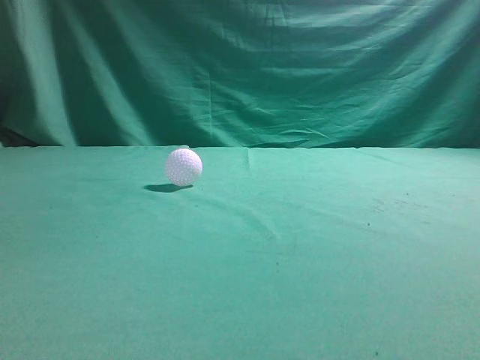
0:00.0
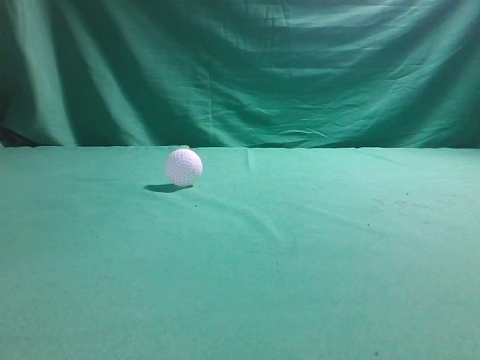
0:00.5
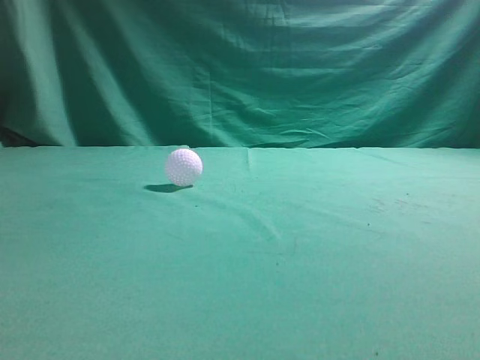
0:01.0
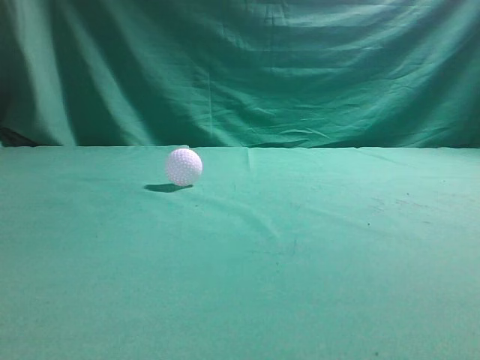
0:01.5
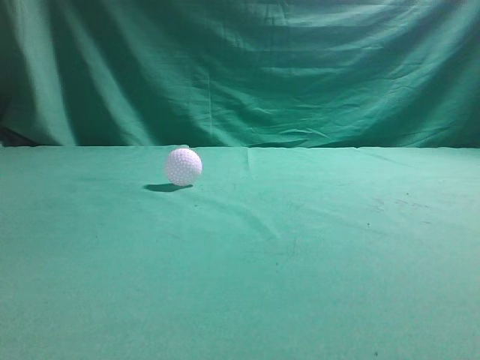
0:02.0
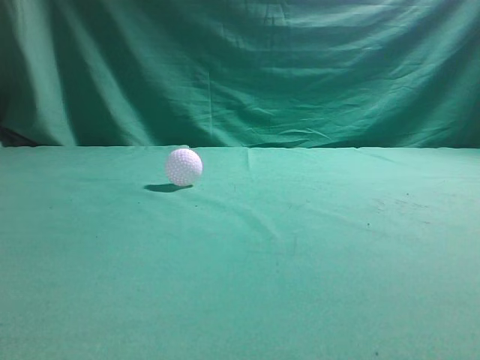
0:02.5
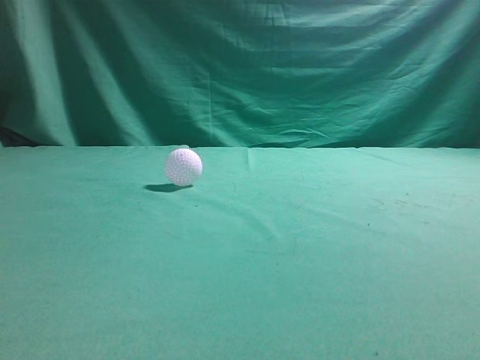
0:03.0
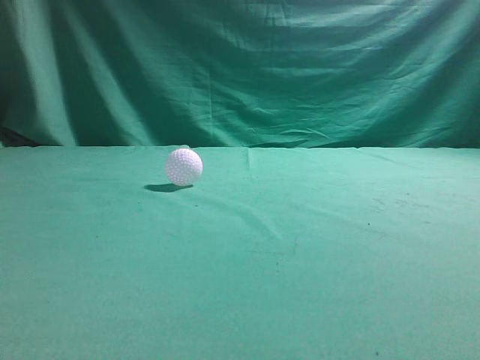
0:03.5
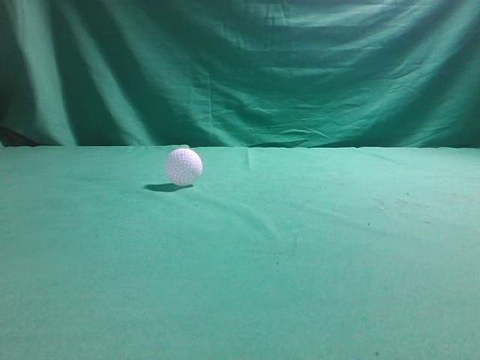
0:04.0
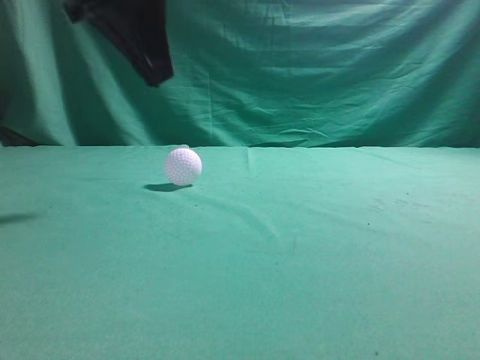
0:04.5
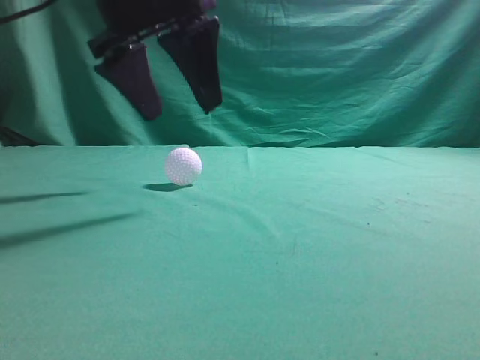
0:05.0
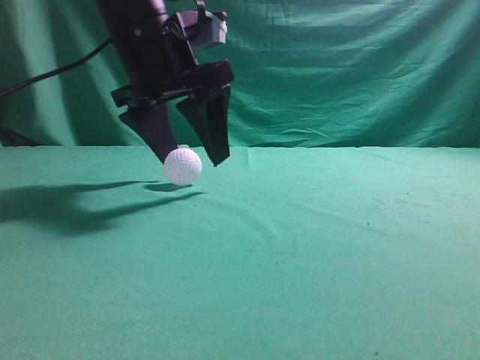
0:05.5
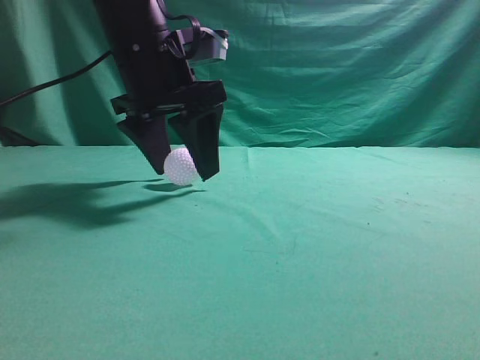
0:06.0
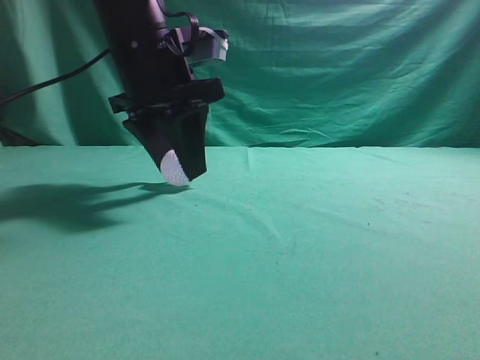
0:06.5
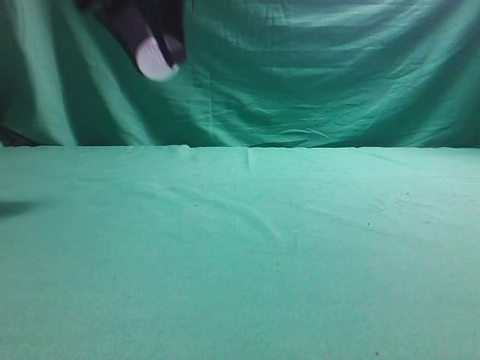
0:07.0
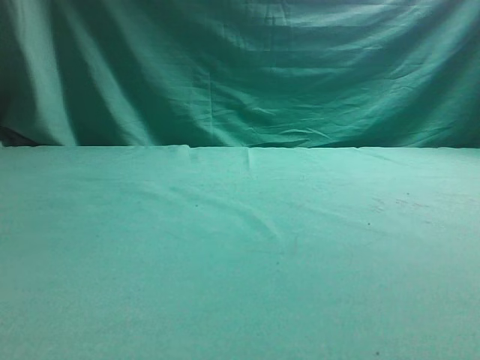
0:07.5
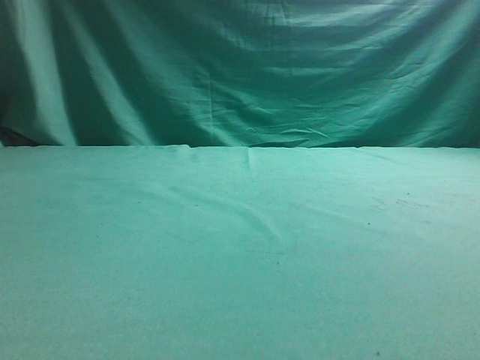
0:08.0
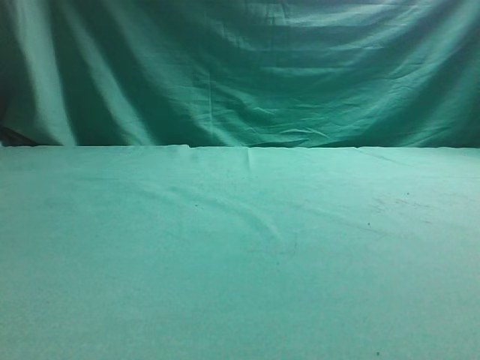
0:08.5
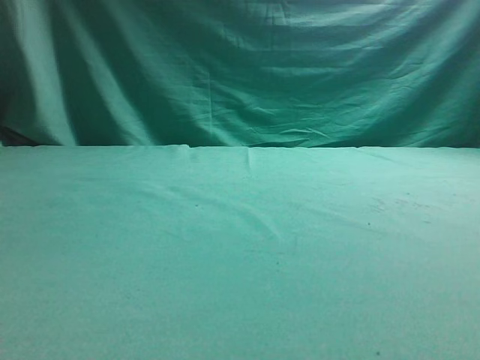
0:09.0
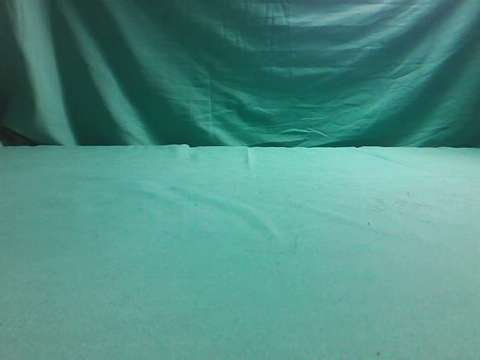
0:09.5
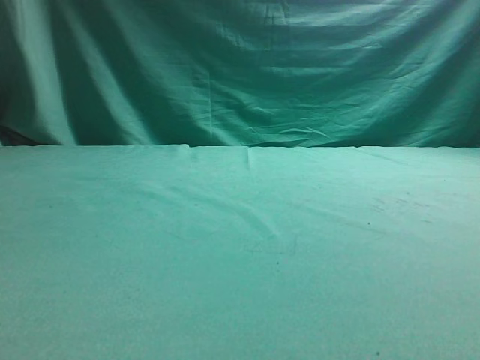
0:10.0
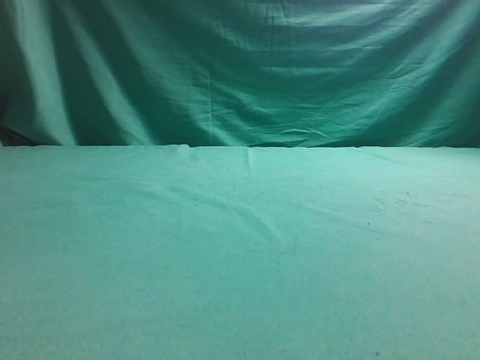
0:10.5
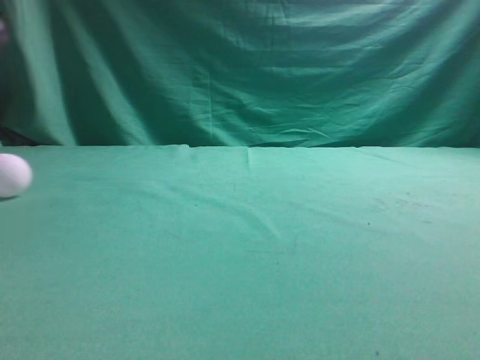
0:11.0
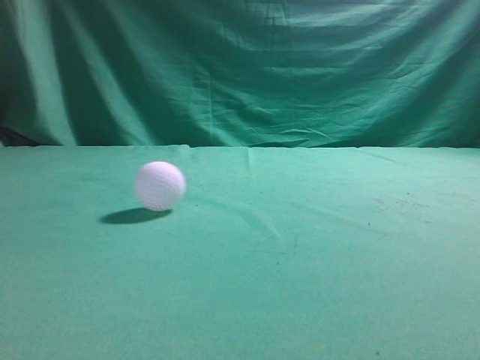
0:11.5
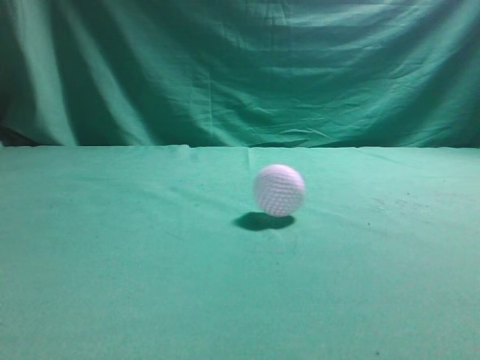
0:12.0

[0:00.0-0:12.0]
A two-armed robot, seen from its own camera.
Task of the whole recording: pick up the ball and place it on the plate, then pick up the ball from the plate and put it in the center of the table.
Step, 0:00.0 to 0:06.5: Grab the spherical object with your left arm.
Step, 0:07.0 to 0:10.0: Place the sphere on the white object.
0:04.0 to 0:06.0: The left gripper is displaced forward, downward and to the right by approximately 25 cm, and opens up.
0:06.0 to 0:08.0: The left gripper moves to the left, upward and backward, roughly 30 cm, and closes its fingers.
0:10.0 to 0:12.0: The left gripper moves upward, backward and to the right, approximately 25 cm, and closes its fingers.

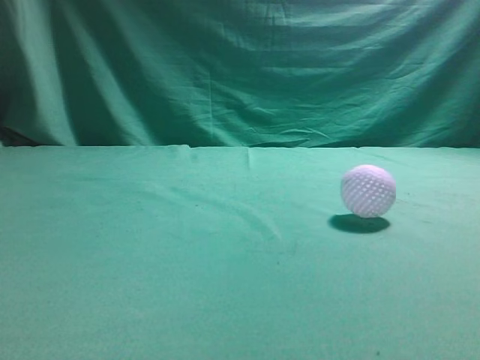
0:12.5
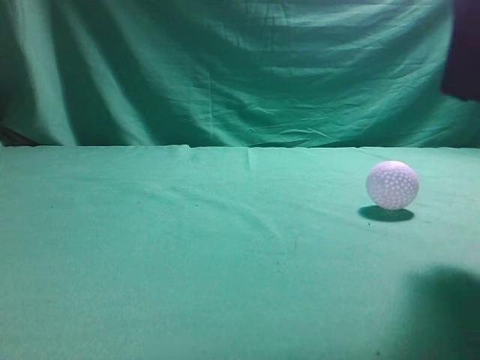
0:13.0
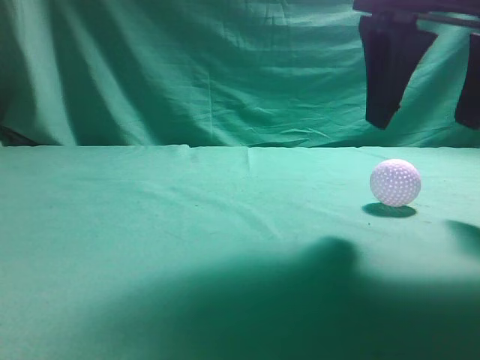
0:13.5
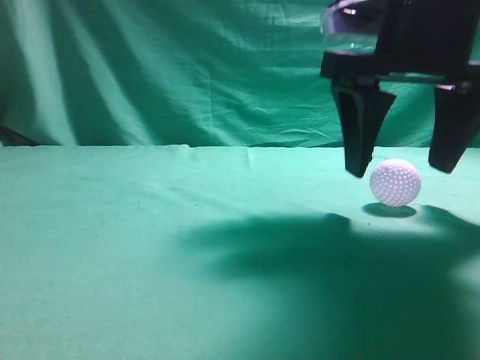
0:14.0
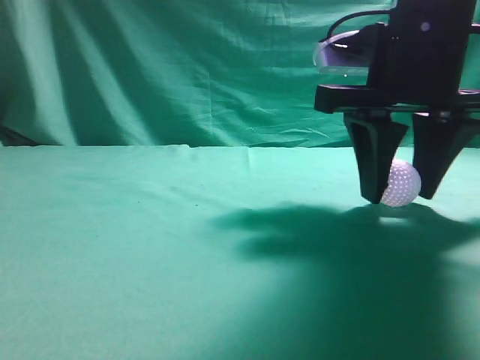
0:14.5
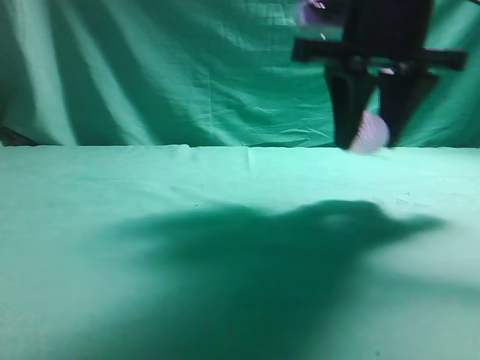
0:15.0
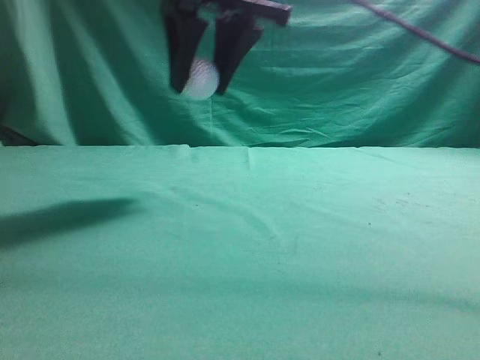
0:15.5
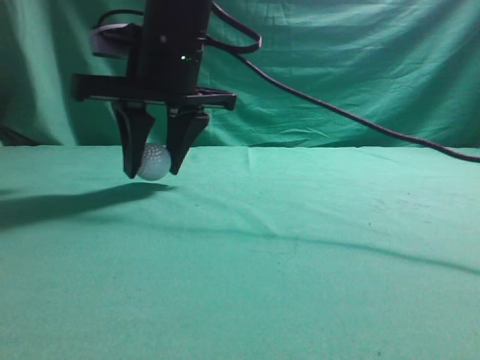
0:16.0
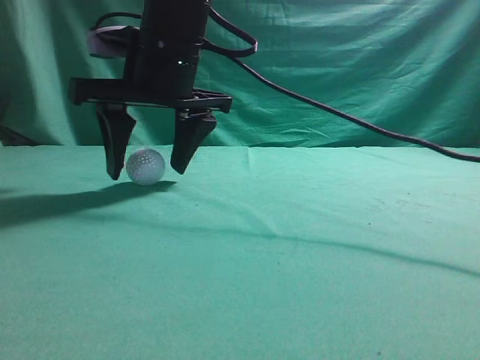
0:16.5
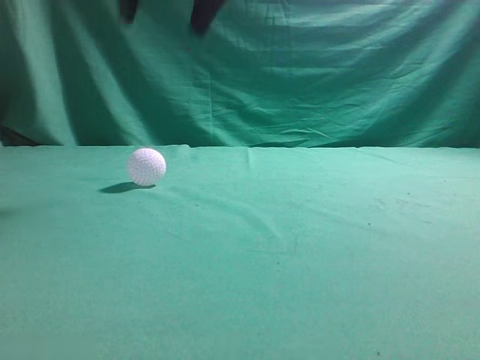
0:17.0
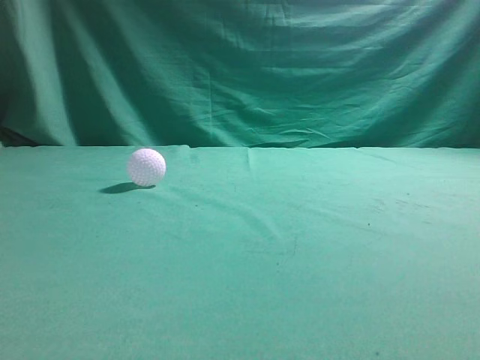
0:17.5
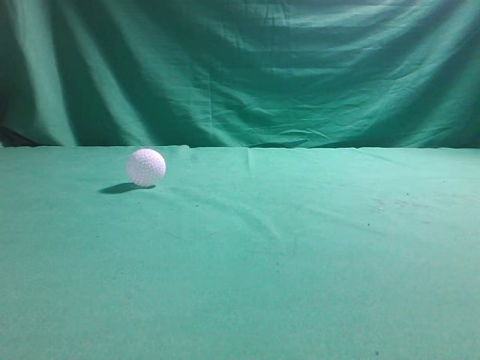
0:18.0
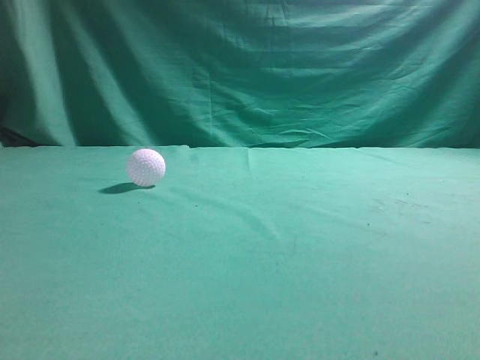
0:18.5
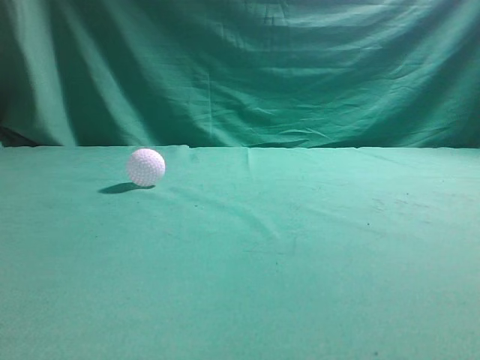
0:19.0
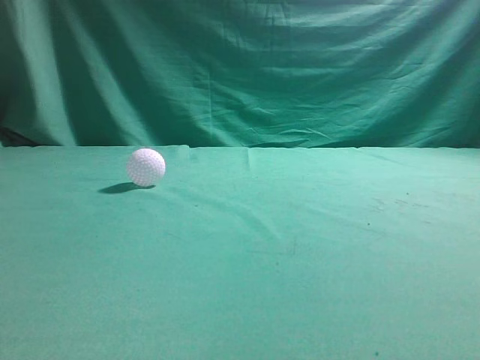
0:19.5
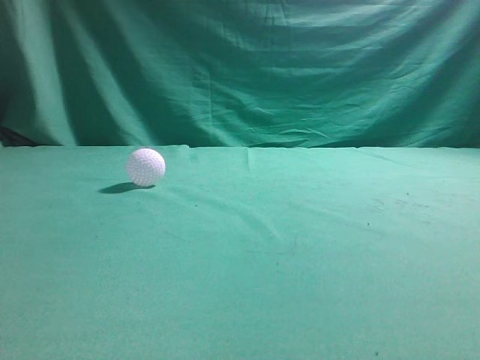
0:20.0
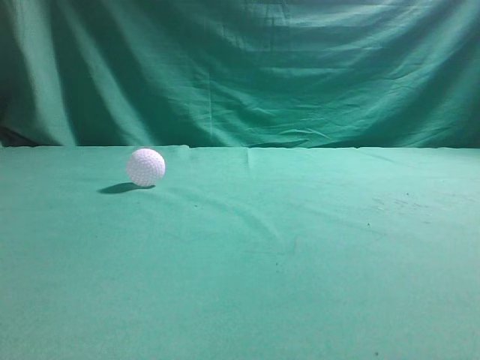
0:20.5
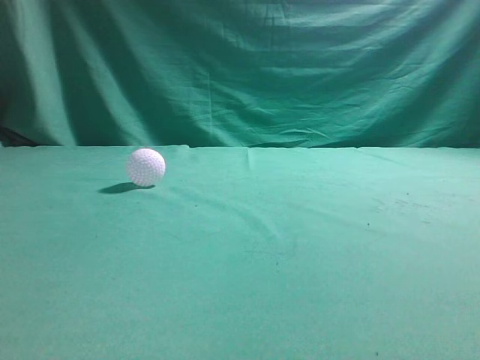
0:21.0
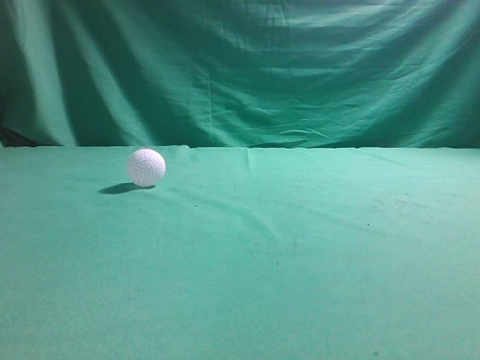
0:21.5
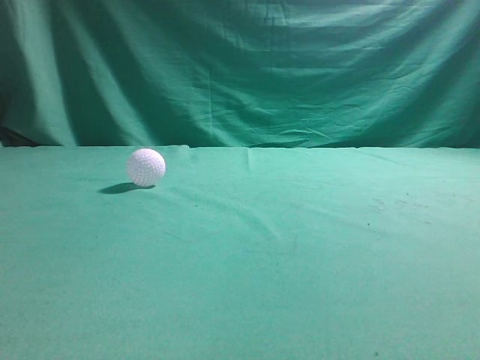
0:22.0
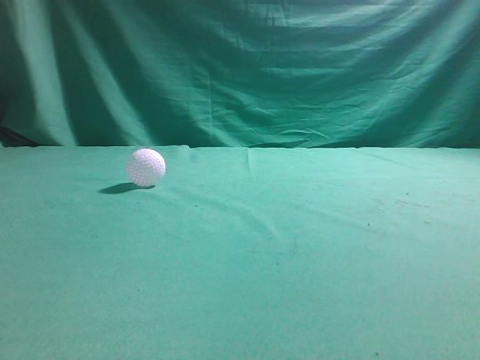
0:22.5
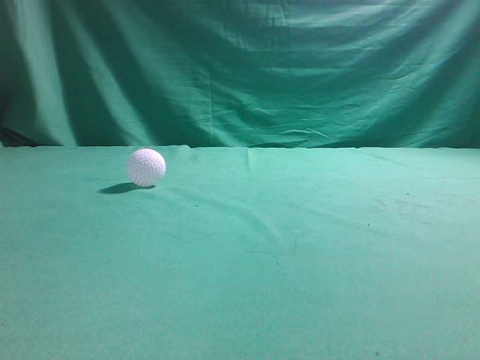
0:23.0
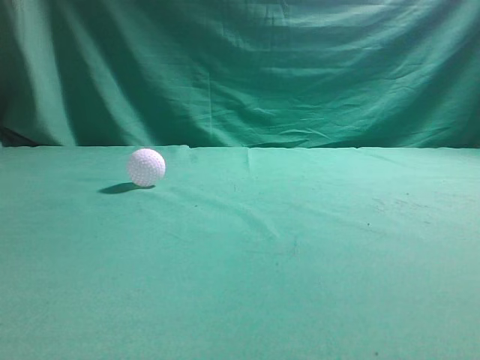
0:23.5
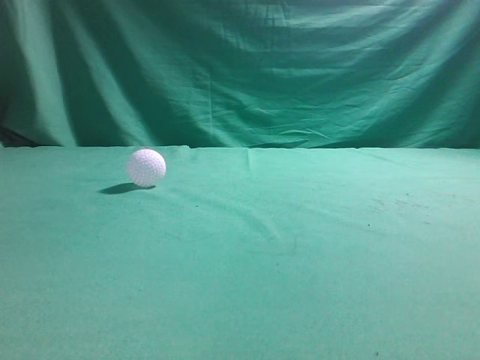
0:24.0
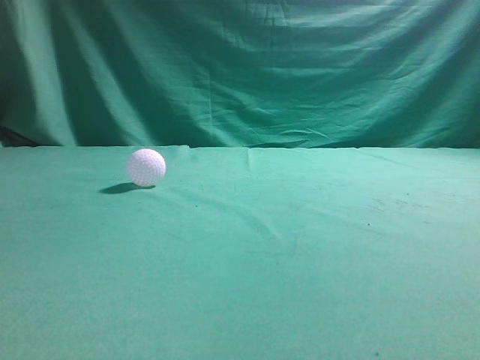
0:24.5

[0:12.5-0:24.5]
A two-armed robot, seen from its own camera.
Task of the whole recording: pick up the ball and place it on the plate, then pick up the ball from the plate and put it in the center of the table.
Step, 0:12.5 to 0:14.5: Grab the rolling spherical object.
Step, 0:15.0 to 0:16.5: Put the picked-up object on the table.
0:12.5 to 0:14.5: The left gripper ends up roughly 5 cm from where it was; the right gripper goes about 15 cm forward, to the left and downward, and opens up.
0:14.5 to 0:16.5: The right gripper shifts about 20 cm to the left.
0:16.5 to 0:18.5: The right gripper goes roughly 40 cm to the right, backward and upward, and closes its fingers.
